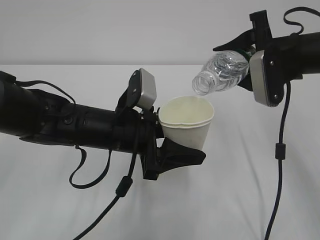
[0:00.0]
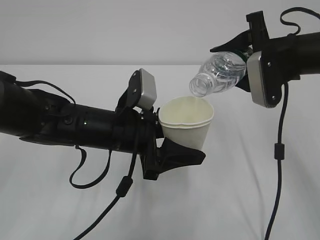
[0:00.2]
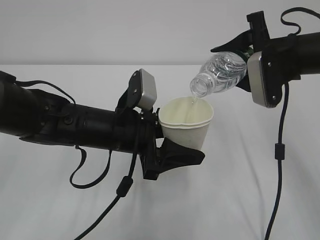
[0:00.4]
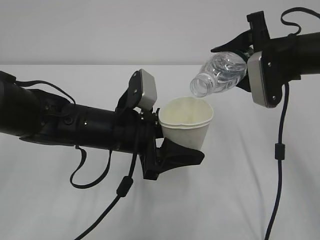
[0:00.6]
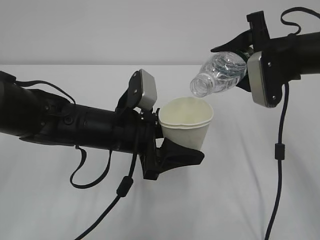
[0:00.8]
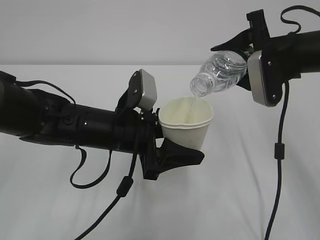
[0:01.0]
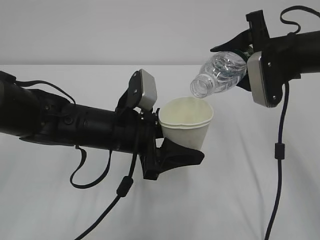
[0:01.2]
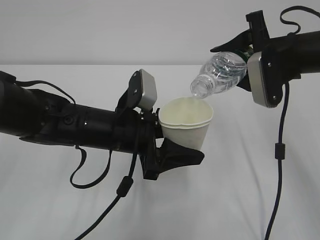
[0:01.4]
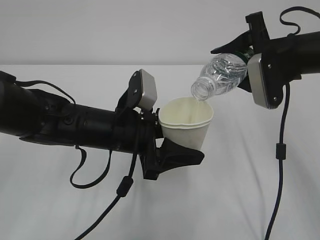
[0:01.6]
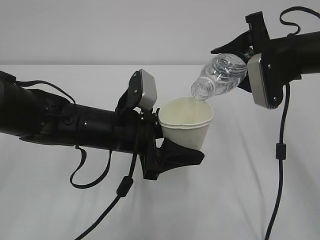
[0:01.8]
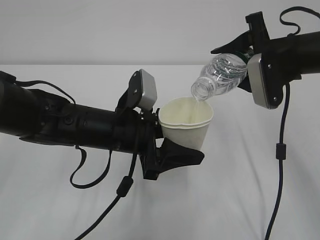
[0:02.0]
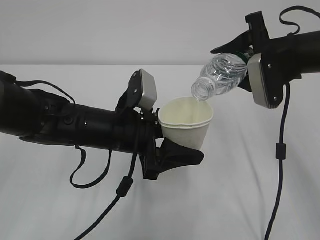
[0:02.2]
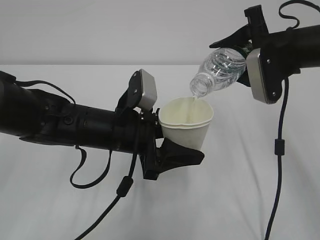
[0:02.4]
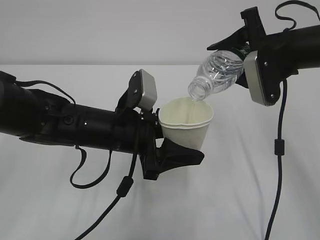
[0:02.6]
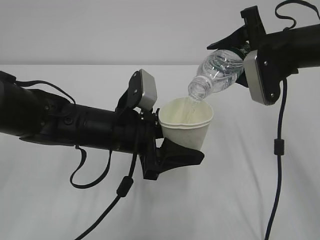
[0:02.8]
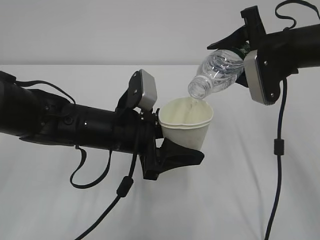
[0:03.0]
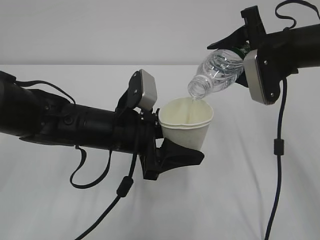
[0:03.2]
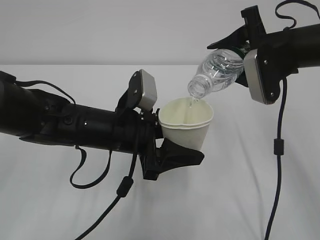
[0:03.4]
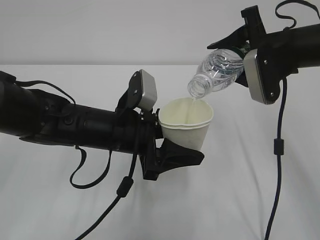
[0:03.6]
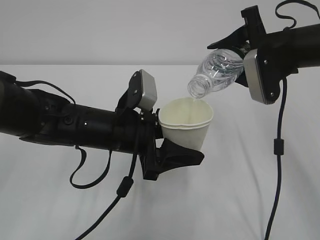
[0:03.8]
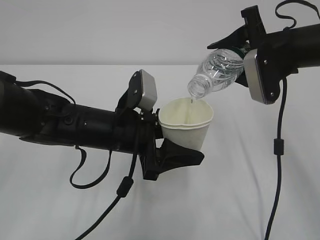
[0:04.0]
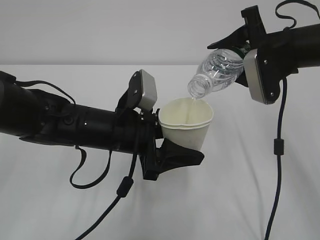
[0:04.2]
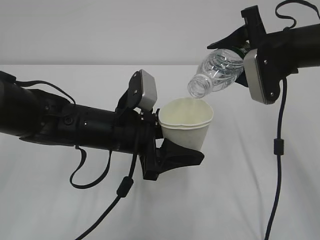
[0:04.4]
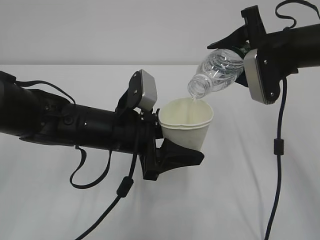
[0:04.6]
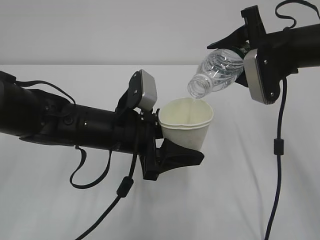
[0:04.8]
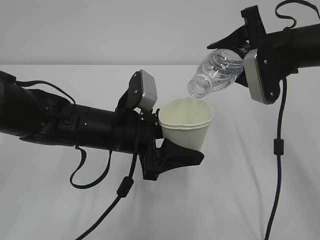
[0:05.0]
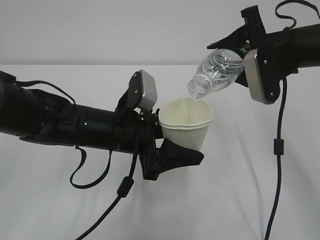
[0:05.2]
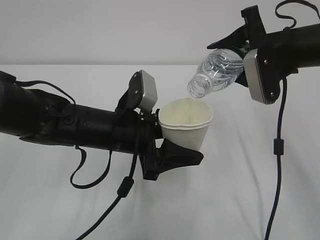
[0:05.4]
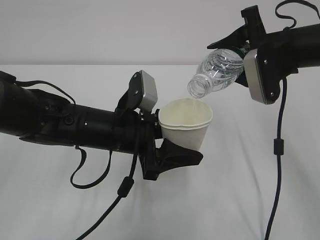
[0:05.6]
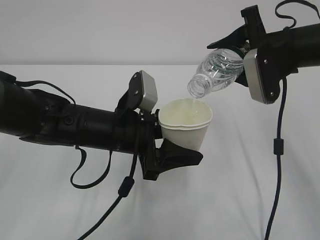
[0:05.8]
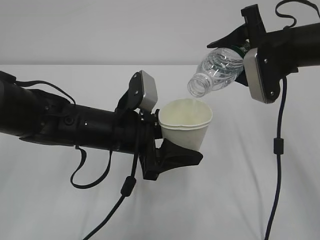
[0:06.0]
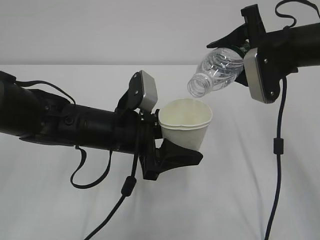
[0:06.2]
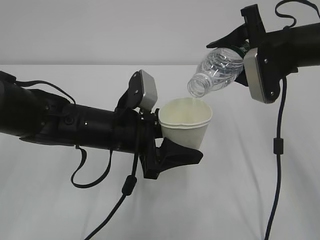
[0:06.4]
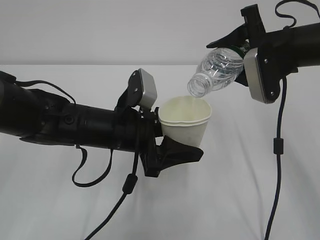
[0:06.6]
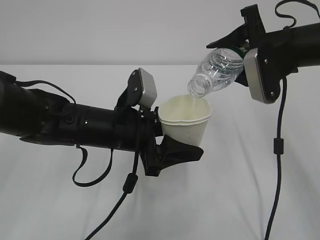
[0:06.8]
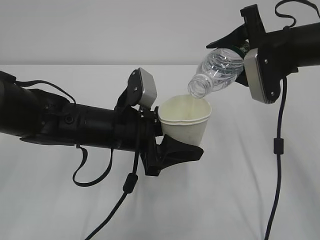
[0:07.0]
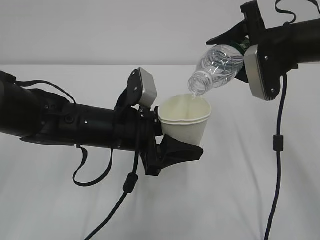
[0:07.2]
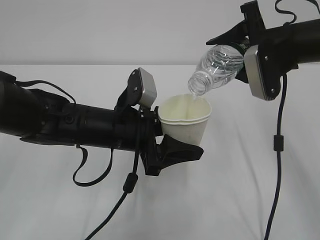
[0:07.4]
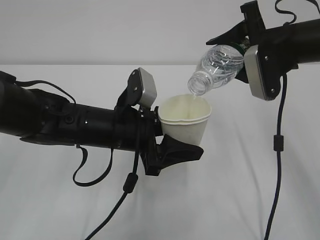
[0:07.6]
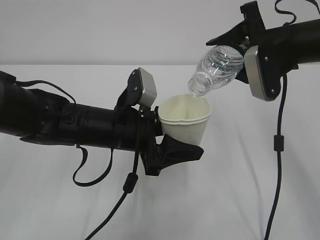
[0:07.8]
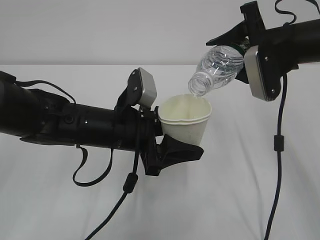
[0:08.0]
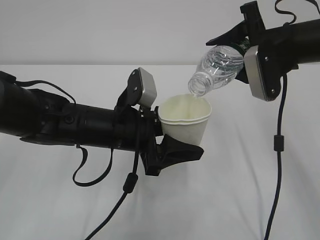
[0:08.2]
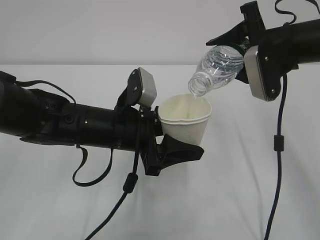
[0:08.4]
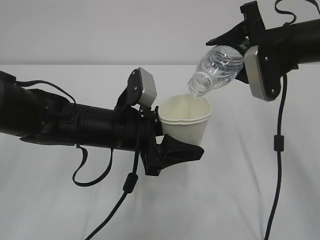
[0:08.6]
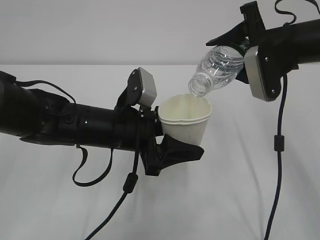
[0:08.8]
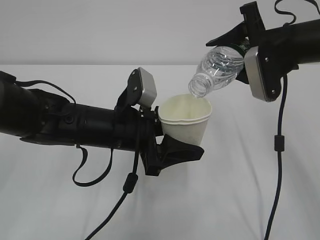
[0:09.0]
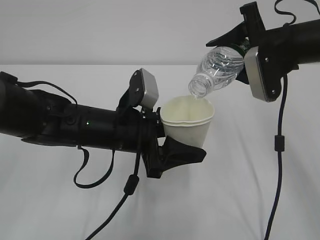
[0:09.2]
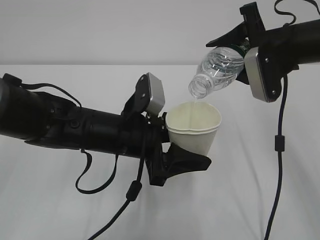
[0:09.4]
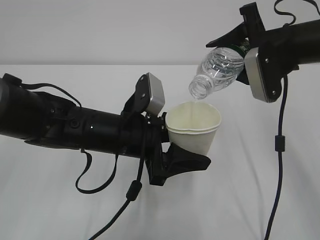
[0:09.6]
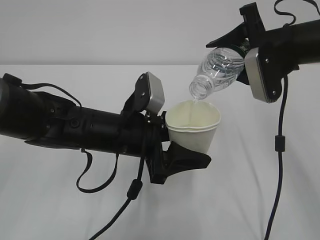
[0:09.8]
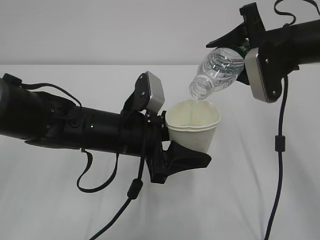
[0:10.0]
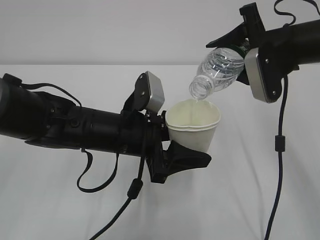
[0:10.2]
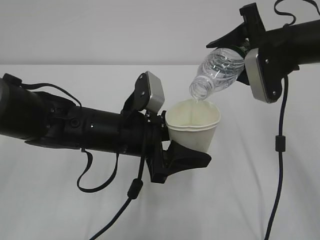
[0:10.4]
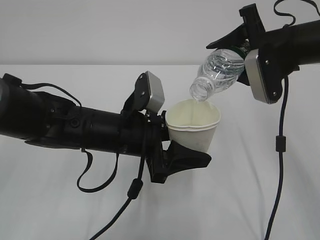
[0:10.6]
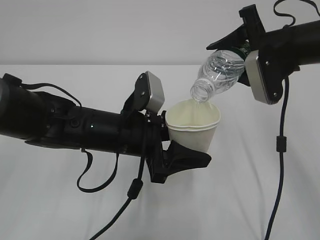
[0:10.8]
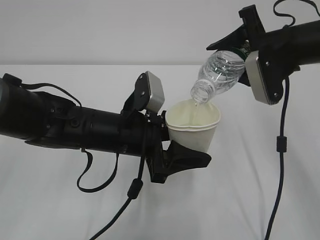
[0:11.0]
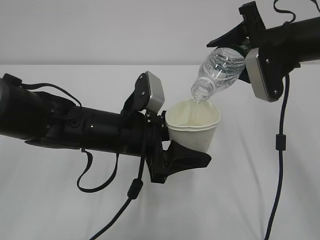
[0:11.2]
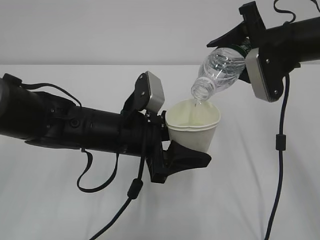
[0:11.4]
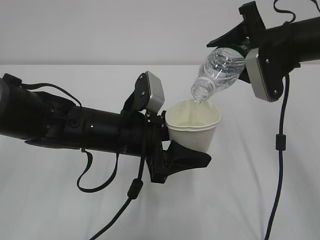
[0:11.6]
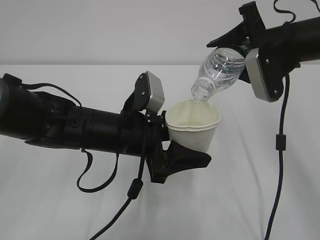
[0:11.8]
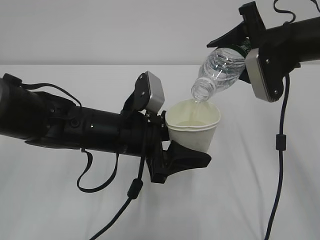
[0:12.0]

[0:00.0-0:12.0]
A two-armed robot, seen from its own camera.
0:00.0 to 0:01.6: The two grippers keep their place.
0:01.6 to 0:06.0: The two grippers keep their place.
0:06.0 to 0:10.4: The two grippers keep their place.
0:10.4 to 0:12.0: The two grippers keep their place.

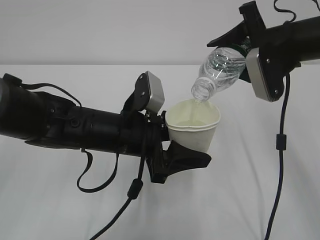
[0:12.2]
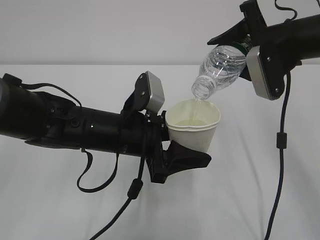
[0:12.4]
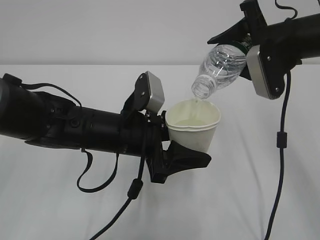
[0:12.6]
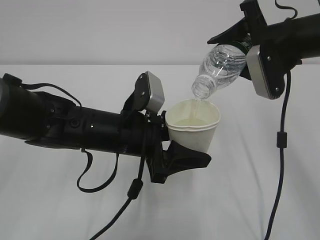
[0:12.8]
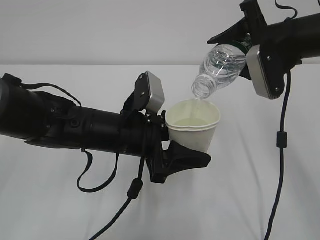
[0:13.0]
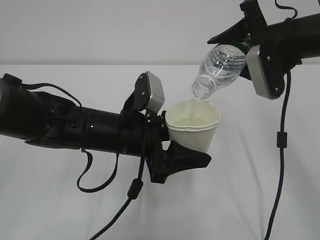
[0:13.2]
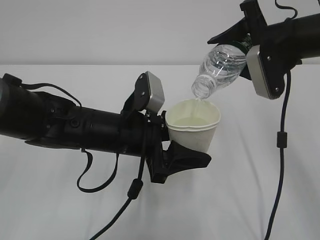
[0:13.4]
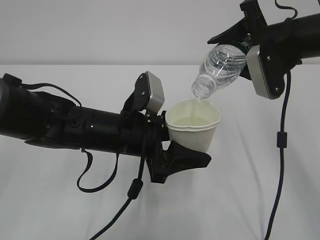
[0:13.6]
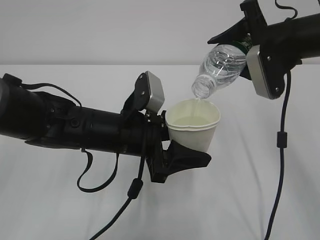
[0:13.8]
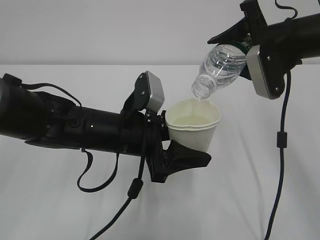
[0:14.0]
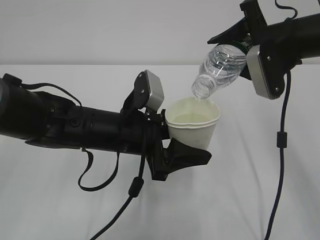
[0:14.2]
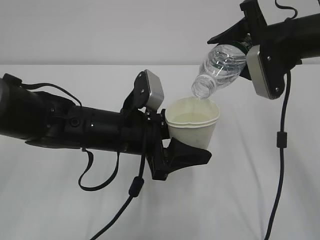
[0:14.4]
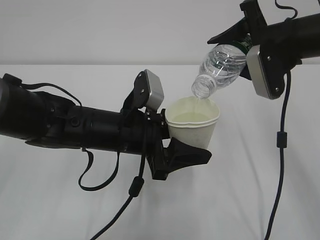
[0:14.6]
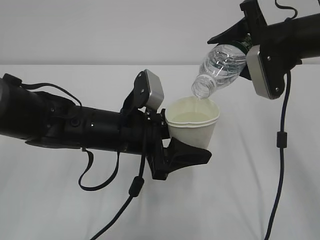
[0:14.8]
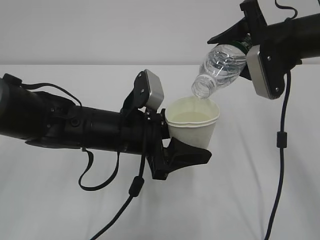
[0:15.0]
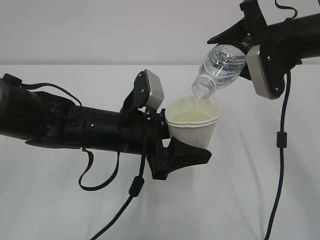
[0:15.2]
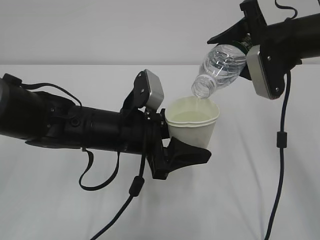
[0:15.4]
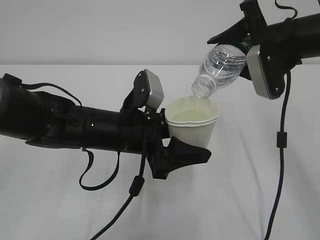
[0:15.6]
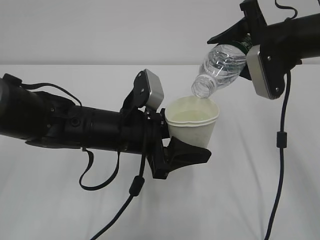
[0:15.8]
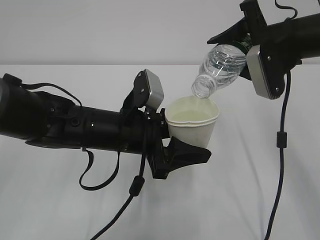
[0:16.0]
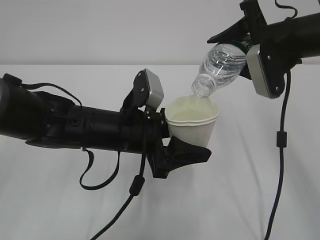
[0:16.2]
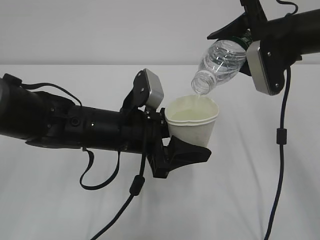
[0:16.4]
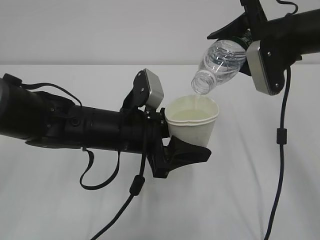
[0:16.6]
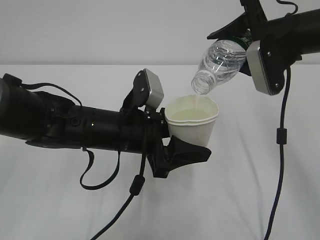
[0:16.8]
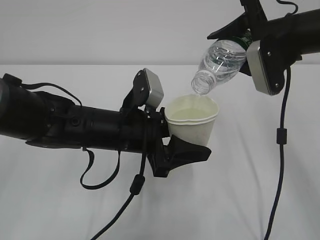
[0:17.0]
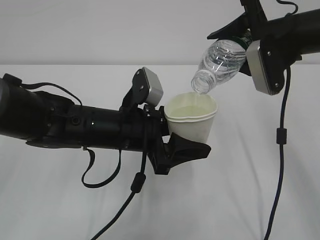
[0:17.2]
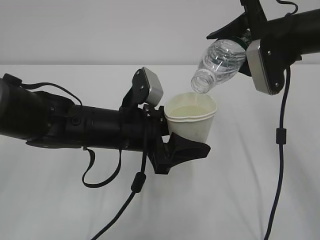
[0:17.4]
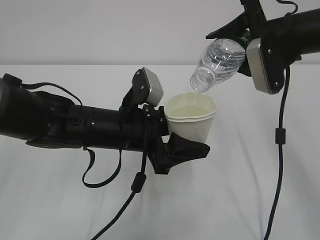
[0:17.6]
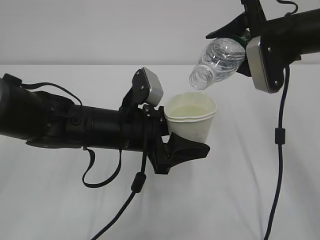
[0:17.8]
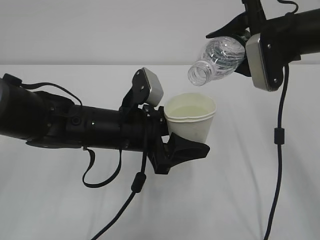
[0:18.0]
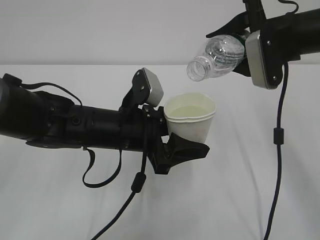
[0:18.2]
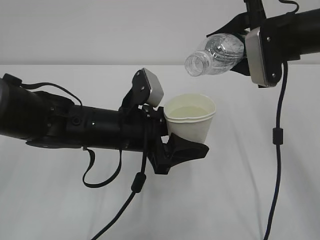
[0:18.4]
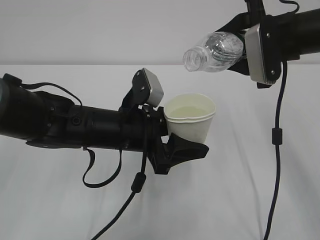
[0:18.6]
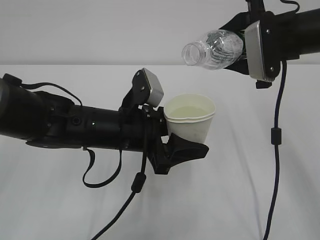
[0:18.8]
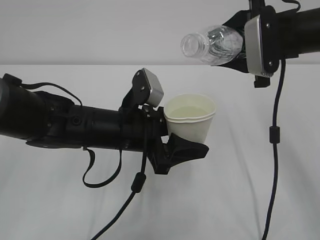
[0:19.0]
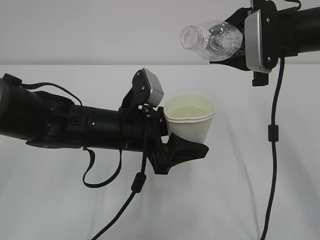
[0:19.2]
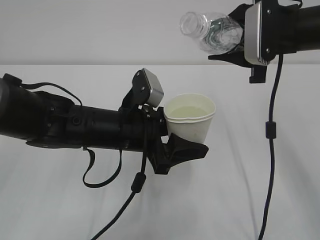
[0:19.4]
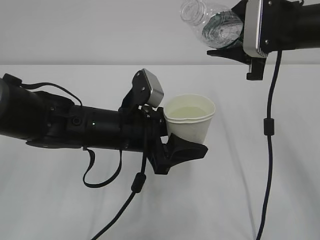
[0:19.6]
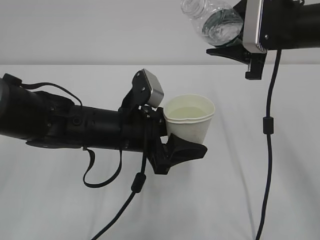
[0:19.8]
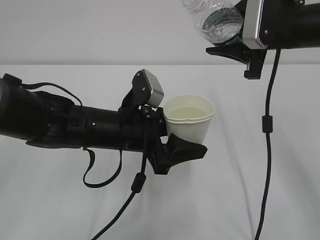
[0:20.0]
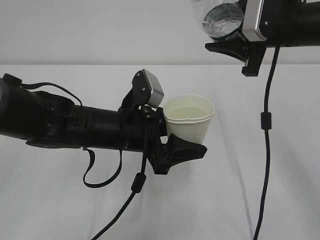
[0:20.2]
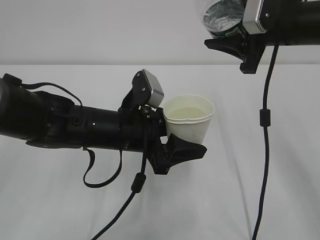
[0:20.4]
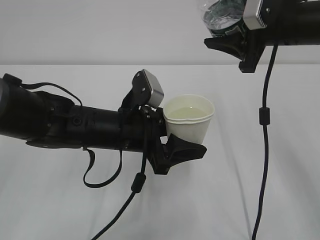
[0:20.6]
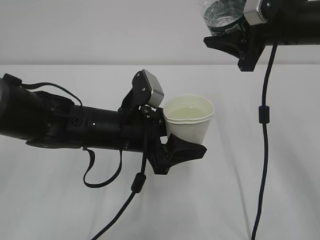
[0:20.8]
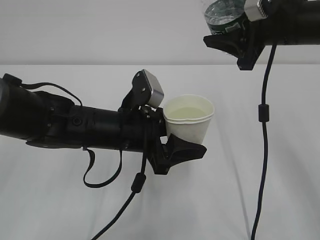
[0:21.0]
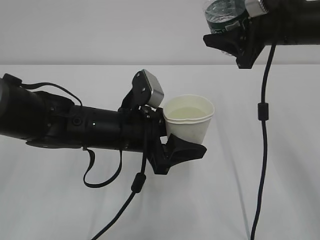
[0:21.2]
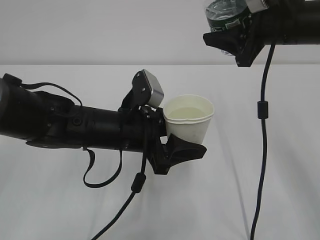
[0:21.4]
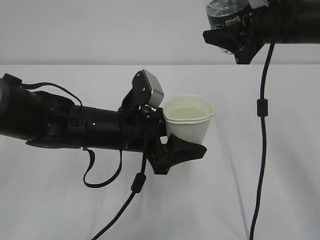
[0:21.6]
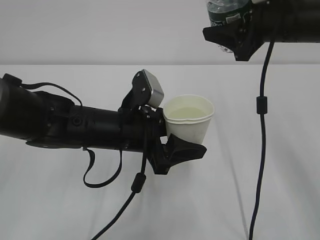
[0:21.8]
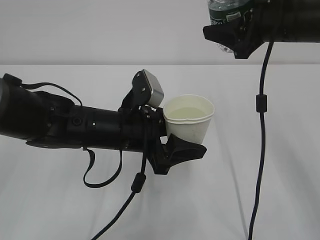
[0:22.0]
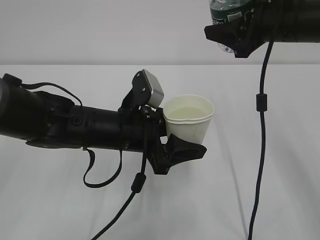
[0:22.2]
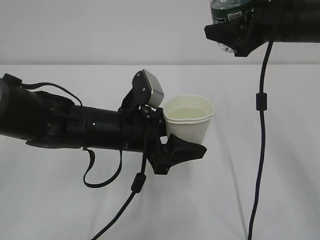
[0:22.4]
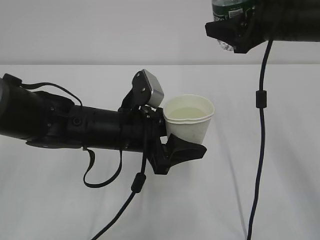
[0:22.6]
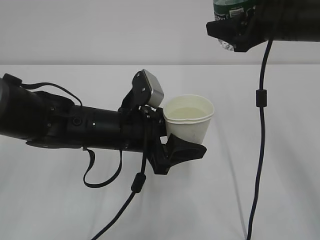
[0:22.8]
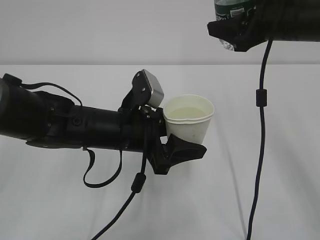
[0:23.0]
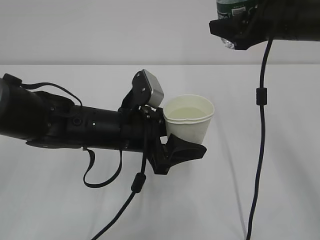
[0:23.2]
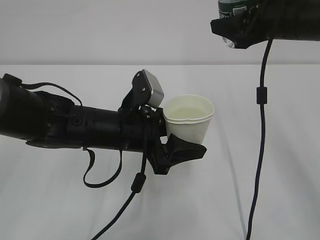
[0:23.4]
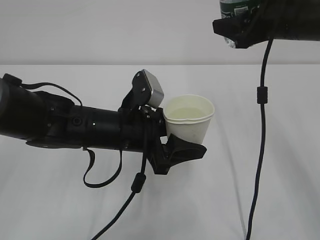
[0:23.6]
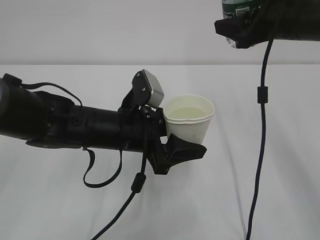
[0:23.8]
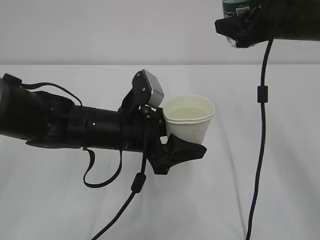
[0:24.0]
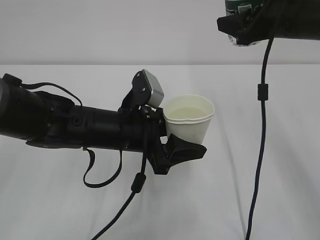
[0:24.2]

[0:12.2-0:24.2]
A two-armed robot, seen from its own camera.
0:12.2 to 0:16.6: Neither gripper changes place.
0:16.6 to 0:18.2: The grippers make only small movements.
0:21.2 to 0:22.6: The grippers make only small movements.
0:22.6 to 0:24.2: There are only small adjustments of the grippers.
